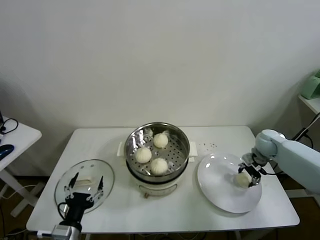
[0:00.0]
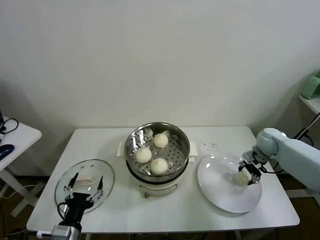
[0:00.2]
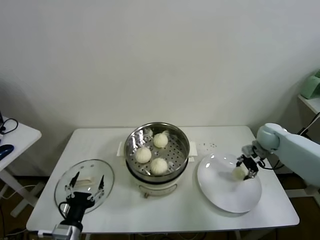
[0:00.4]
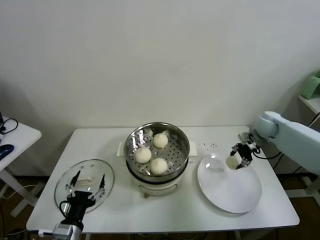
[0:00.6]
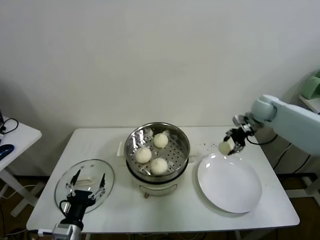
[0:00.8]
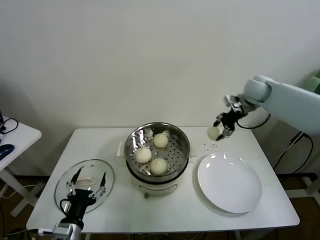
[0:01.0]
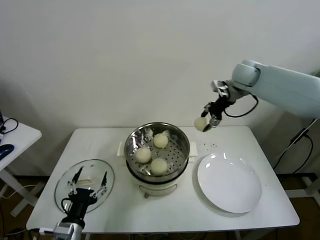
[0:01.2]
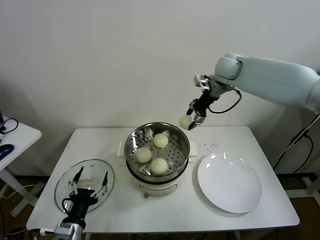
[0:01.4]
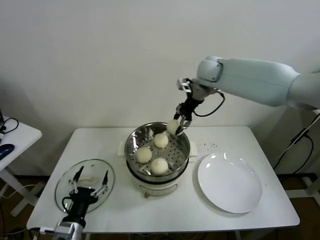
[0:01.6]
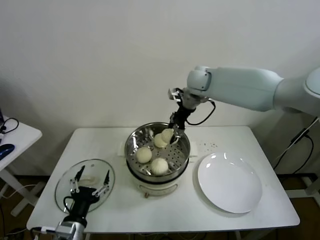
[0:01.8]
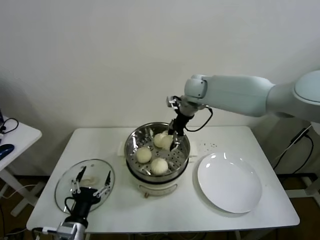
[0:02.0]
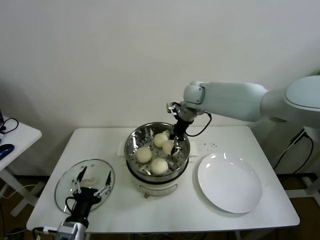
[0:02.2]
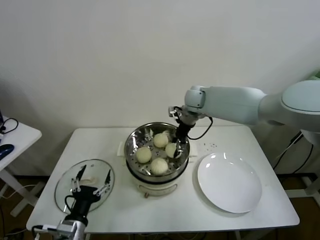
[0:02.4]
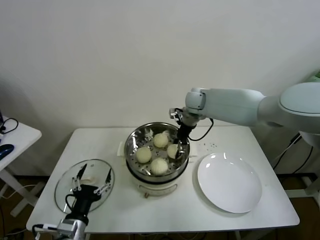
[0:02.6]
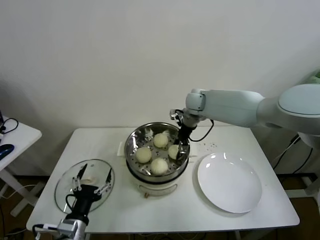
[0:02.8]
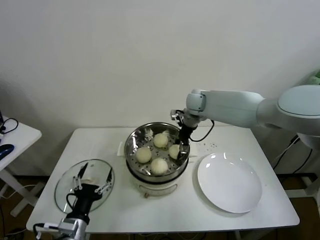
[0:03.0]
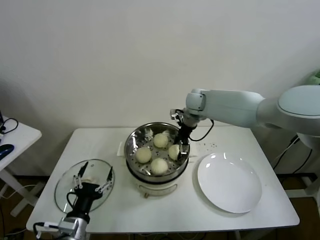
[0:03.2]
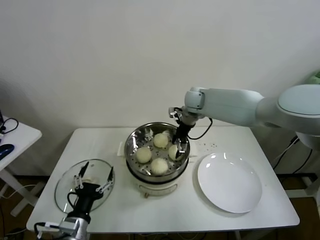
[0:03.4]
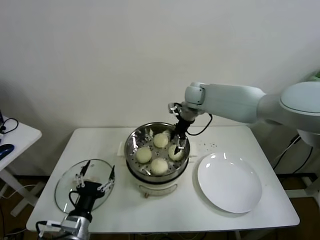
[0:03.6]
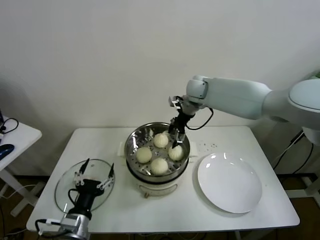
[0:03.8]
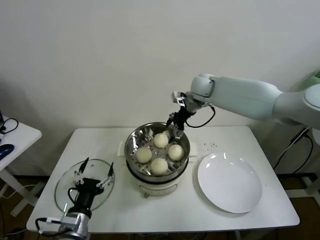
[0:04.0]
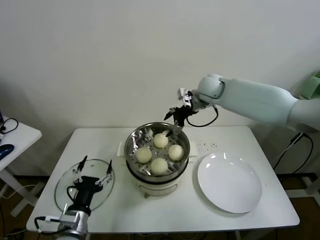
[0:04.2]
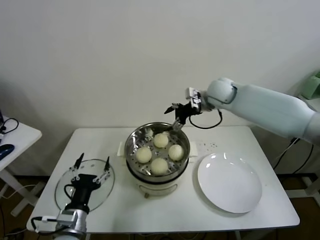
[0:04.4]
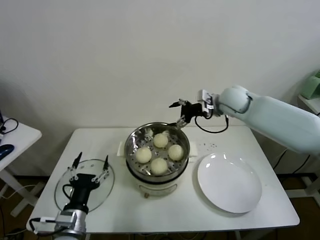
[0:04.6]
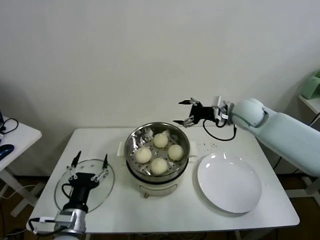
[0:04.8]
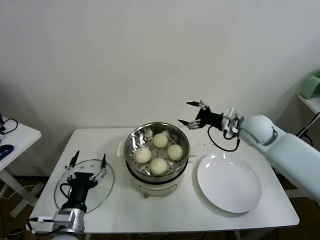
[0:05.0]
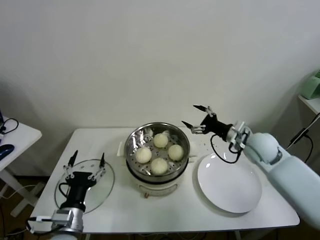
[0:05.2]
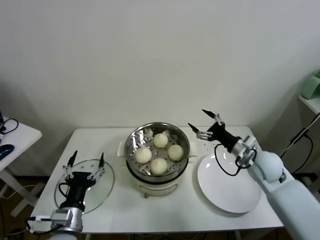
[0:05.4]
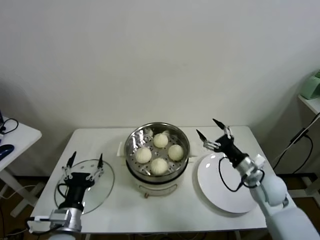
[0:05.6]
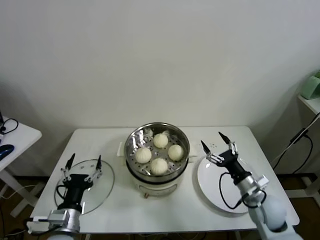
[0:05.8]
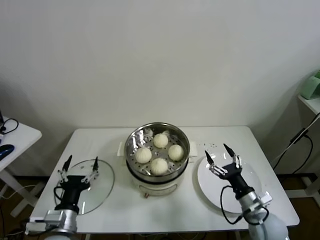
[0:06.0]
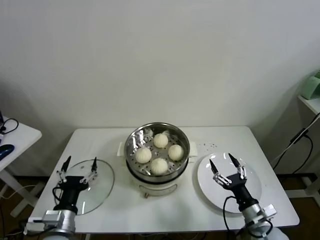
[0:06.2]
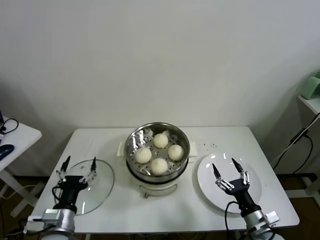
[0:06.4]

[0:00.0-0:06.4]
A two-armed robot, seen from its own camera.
Task of the whole recording: take steamed baozi put them in steamer.
Step, 0:00.0 to 0:03.2: Place the baozi on the steamer with right gripper.
0:00.0 to 0:01.6: The right gripper is displaced upward and to the left by about 35 cm.
0:01.6 to 0:03.2: The right gripper moves downward, approximately 10 cm, and opens up.
0:03.2 to 0:04.8: The right gripper travels to the right and backward by some 15 cm.
0:04.8 to 0:06.4: The right gripper goes about 40 cm backward and downward.

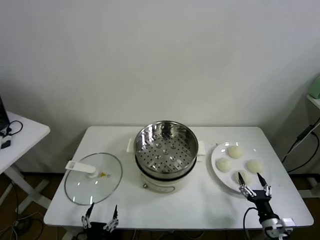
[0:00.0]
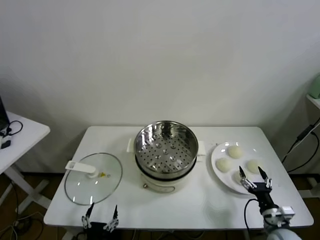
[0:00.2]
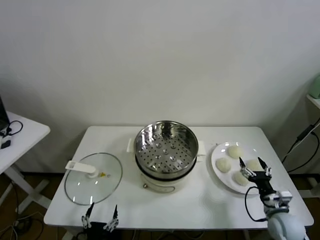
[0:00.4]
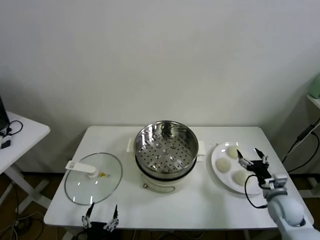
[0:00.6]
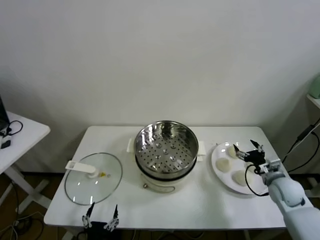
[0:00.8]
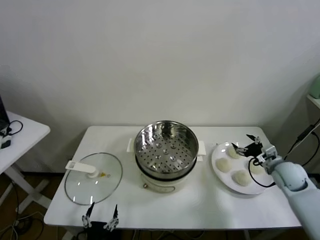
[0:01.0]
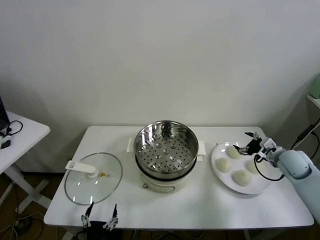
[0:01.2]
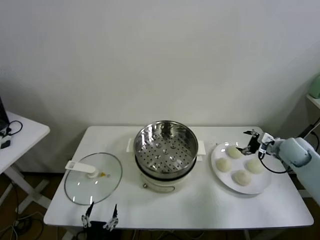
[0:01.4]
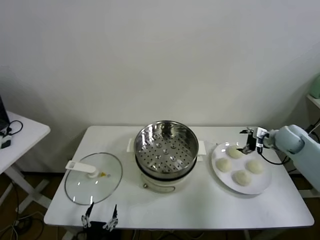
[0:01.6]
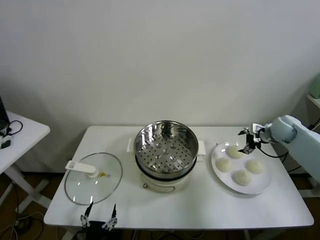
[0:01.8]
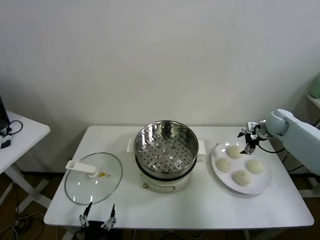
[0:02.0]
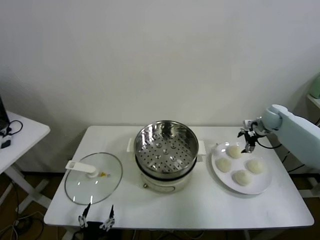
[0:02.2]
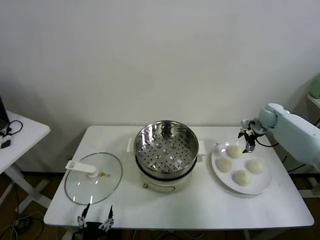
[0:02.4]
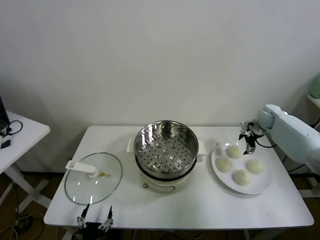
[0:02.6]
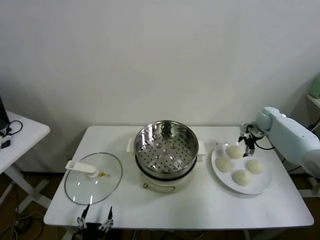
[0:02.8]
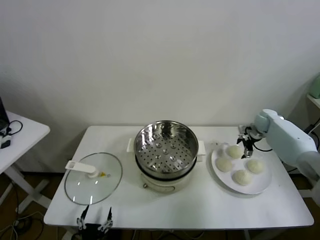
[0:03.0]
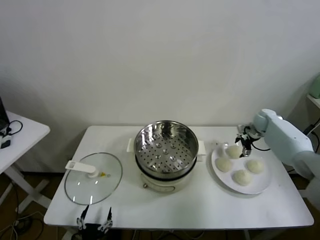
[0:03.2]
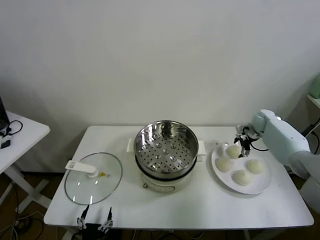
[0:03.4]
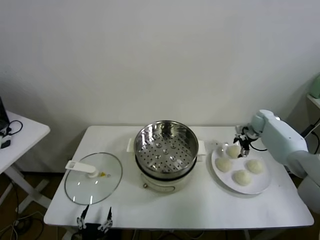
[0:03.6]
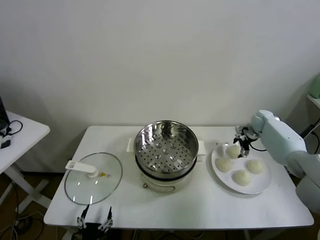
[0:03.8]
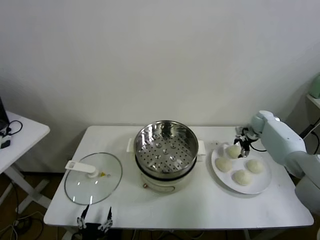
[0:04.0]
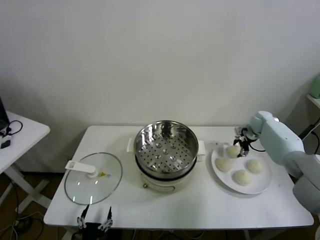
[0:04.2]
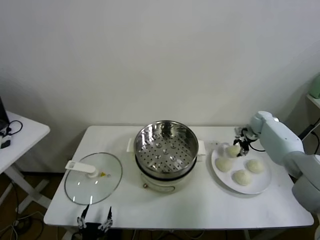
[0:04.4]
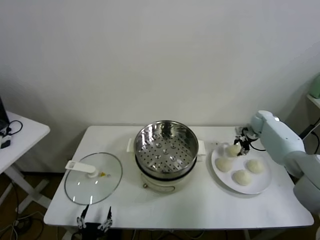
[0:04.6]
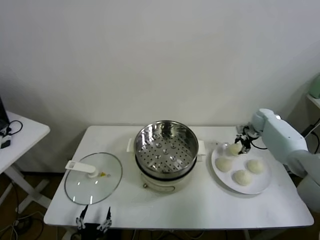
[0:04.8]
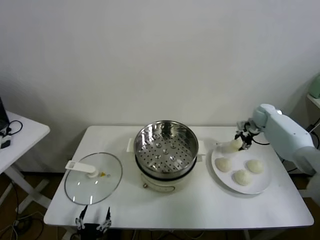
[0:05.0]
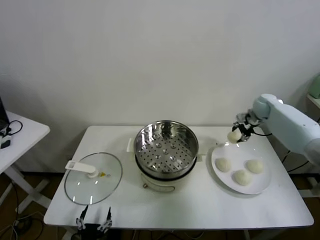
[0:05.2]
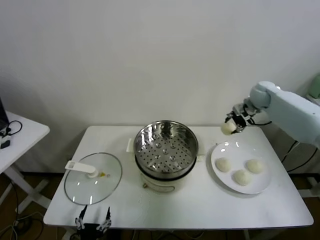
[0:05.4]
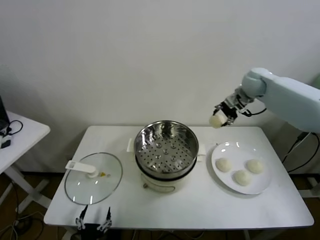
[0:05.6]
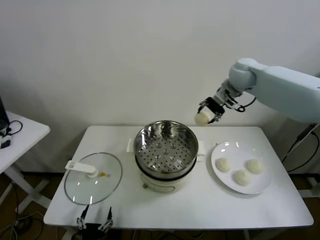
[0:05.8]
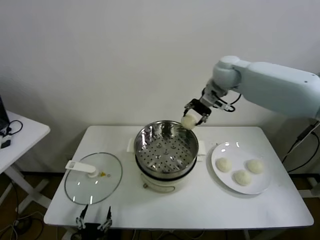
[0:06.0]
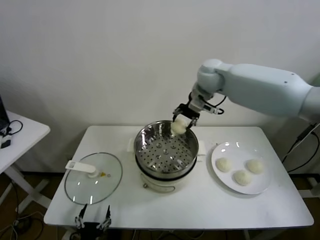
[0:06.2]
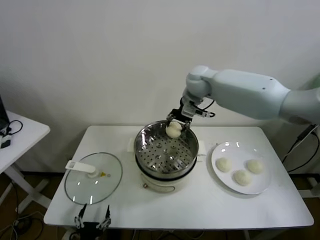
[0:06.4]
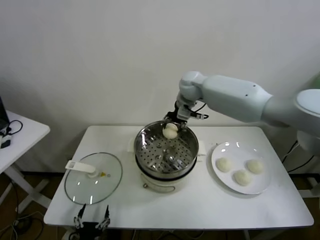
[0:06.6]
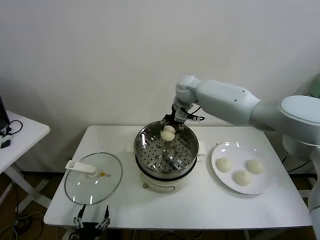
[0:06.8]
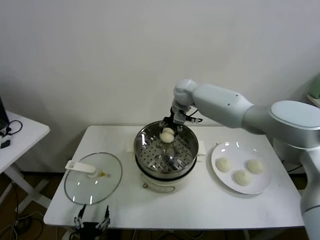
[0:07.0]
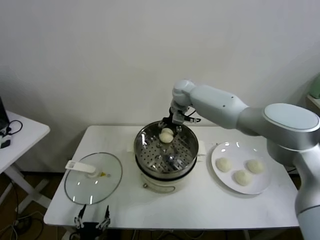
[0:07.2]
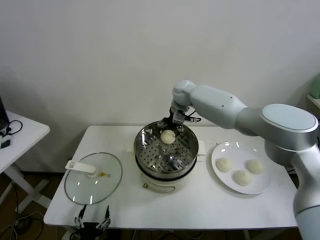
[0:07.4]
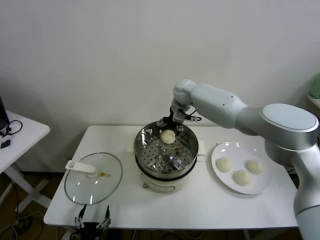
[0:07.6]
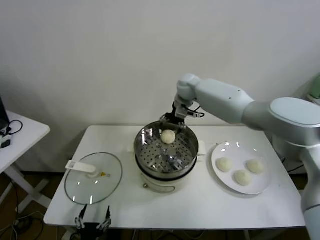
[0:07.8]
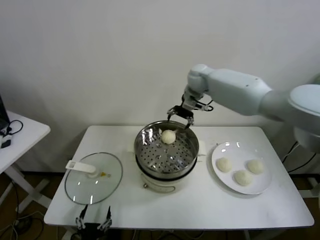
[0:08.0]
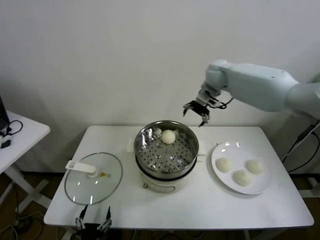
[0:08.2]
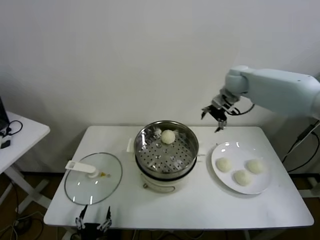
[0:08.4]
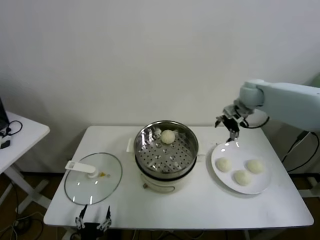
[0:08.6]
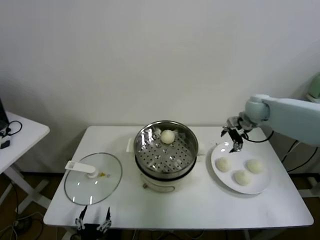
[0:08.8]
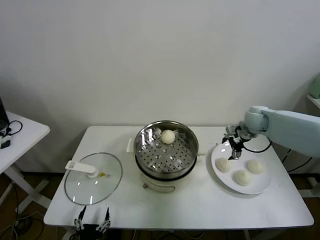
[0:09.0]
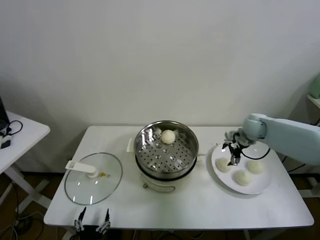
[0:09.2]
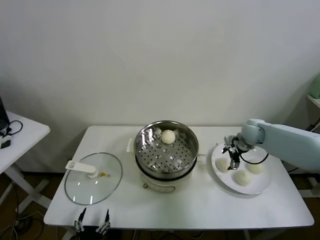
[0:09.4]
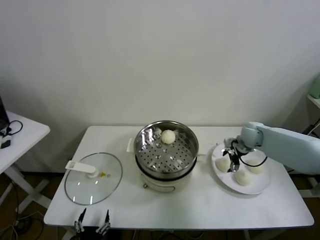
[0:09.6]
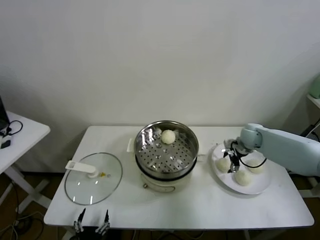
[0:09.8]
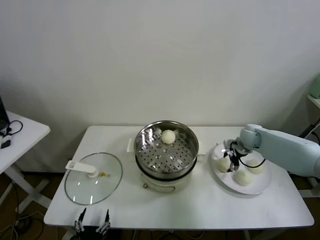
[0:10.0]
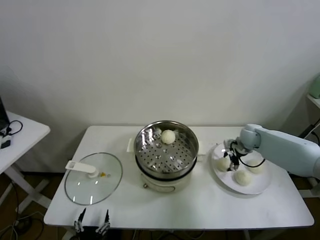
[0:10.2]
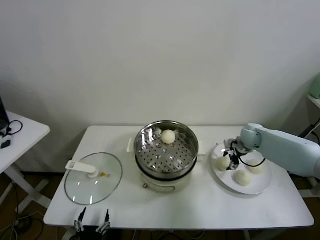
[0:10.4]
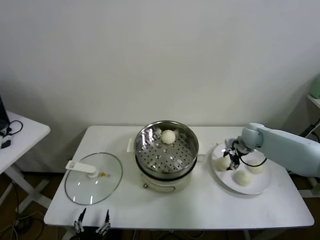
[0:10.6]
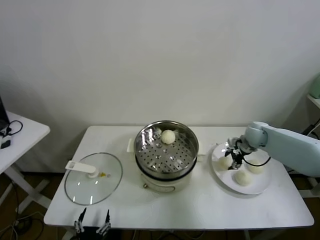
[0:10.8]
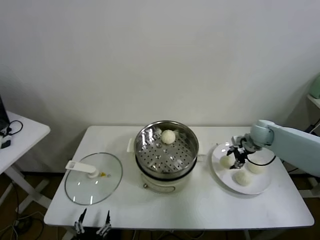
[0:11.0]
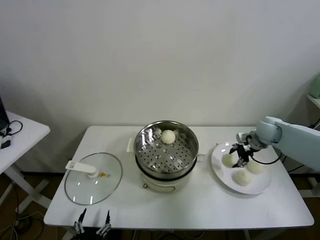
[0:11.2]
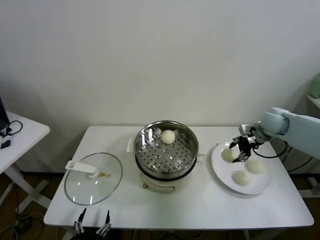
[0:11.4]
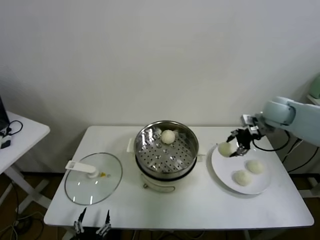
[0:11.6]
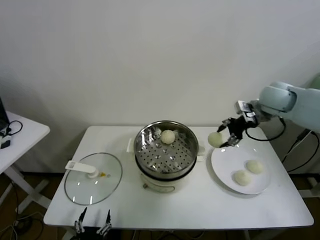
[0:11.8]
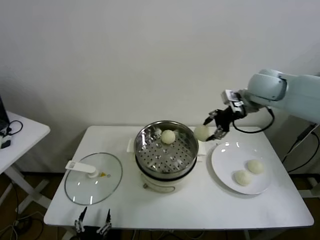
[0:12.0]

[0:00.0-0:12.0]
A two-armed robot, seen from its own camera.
Task of the whole recording: take steamed baozi put them in steamer.
Step, 0:00.0 to 0:04.4: Grasp the baozi in the plate with right gripper.
Step, 0:04.6 to 0:07.6: Place the baozi on the steamer with right gripper.
Step, 0:07.8 to 0:10.4: Grasp the baozi in the plate with right gripper.
0:01.6 to 0:03.0: The right gripper shifts roughly 10 cm forward.
0:03.0 to 0:04.4: The right gripper closes.
0:04.4 to 0:06.0: The right gripper is displaced upward and to the left by approximately 35 cm.
0:06.0 to 0:07.6: The right gripper moves downward, to the left and forward, about 15 cm, and opens.
0:07.6 to 0:09.0: The right gripper moves to the right, roughly 25 cm.
0:09.0 to 0:10.4: The right gripper is displaced downward by approximately 10 cm, and closes its fingers.
0:10.4 to 0:12.0: The right gripper moves upward, roughly 25 cm.

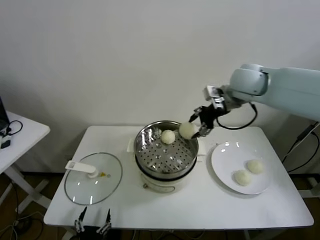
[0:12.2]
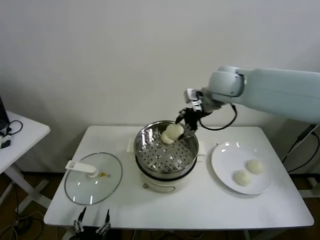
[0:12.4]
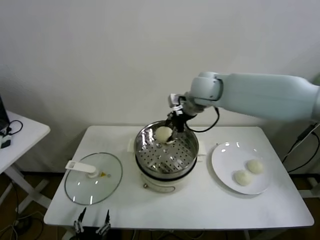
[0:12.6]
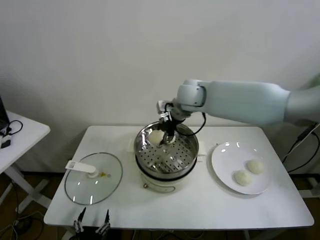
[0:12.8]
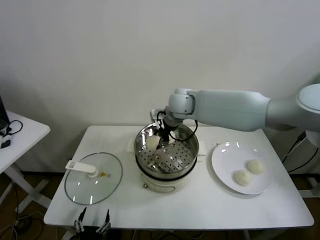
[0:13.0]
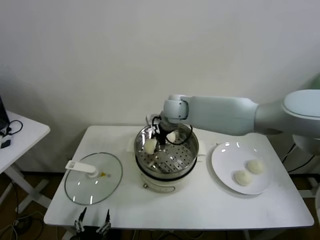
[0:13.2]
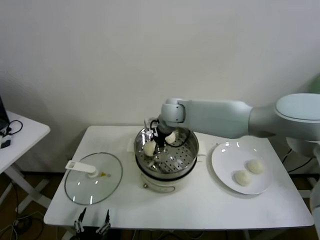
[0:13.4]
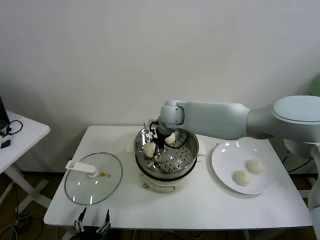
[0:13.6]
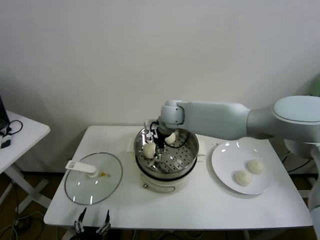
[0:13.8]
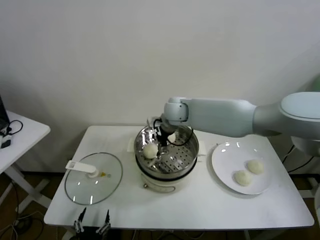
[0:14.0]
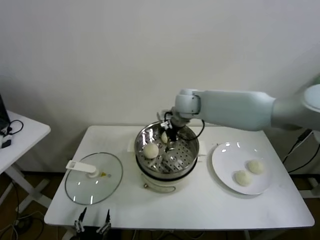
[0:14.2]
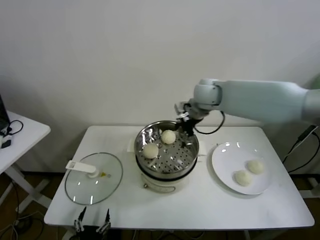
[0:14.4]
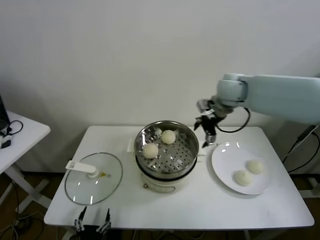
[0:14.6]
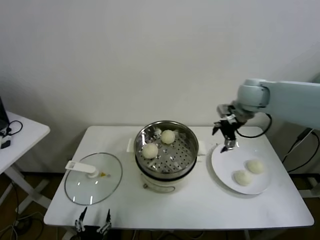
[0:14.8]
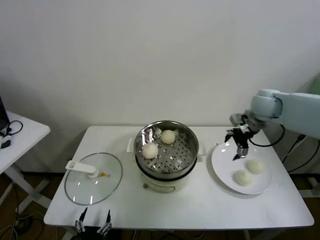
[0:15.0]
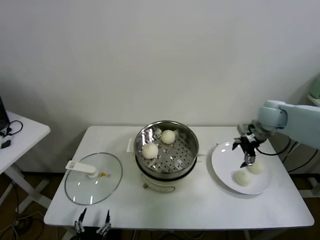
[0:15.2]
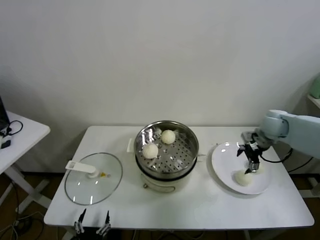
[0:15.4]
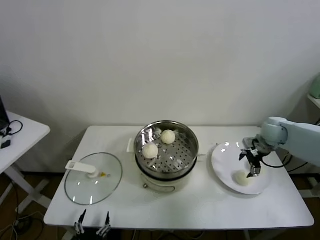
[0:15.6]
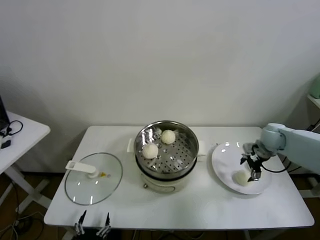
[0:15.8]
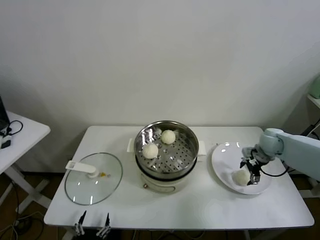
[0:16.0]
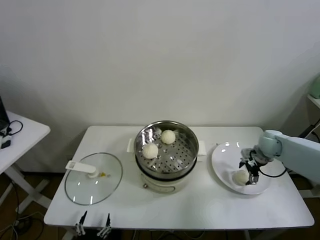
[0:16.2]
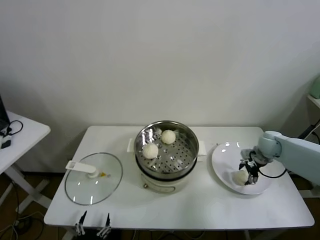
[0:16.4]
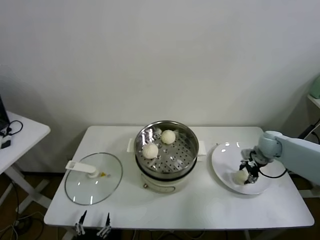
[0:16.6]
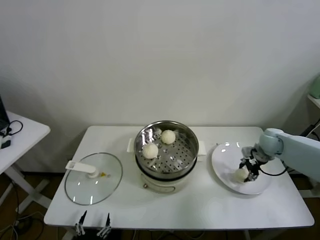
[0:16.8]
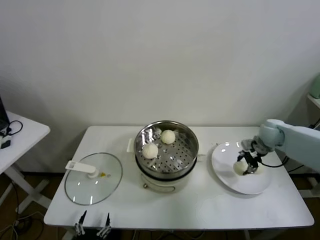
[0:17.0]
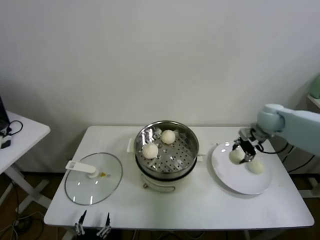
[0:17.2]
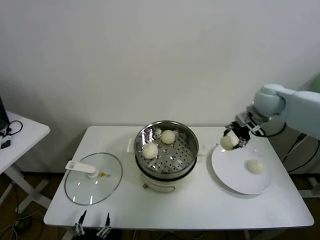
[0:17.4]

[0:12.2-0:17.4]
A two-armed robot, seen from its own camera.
Task of the whole recording: take steamed baozi put them in steamer.
Step, 0:14.0 to 0:16.4: Grasp the baozi in the plate with right gripper.
0:12.2 to 0:14.0: The right gripper shifts some 20 cm to the left and downward, and opens its fingers.
0:14.0 to 0:15.6: The right gripper is displaced to the right by some 35 cm.
0:15.6 to 0:17.4: The right gripper travels upward and to the left by some 15 cm, and closes.
